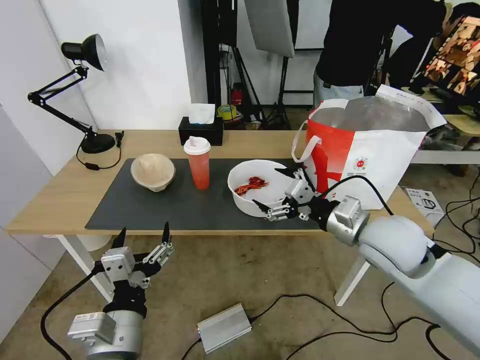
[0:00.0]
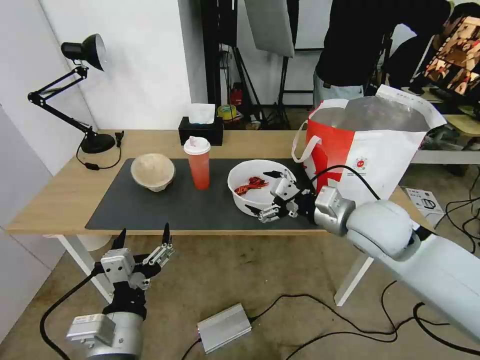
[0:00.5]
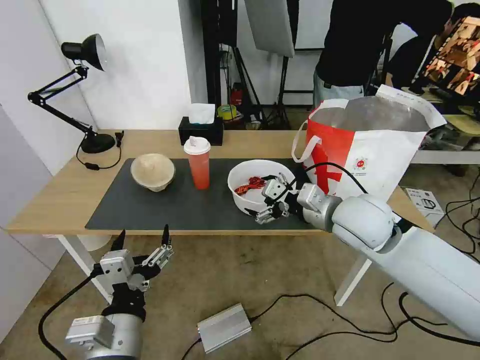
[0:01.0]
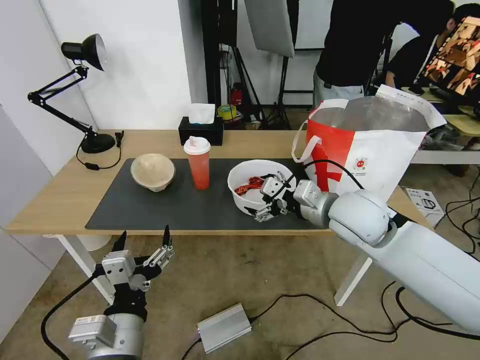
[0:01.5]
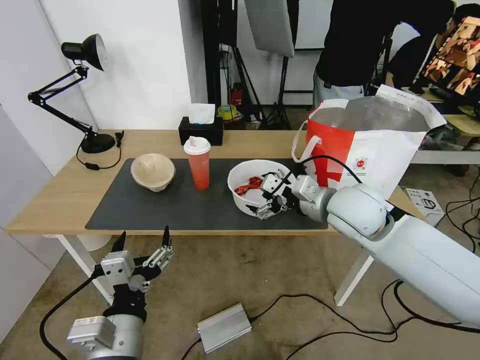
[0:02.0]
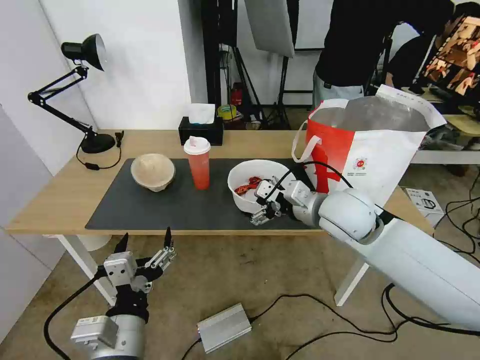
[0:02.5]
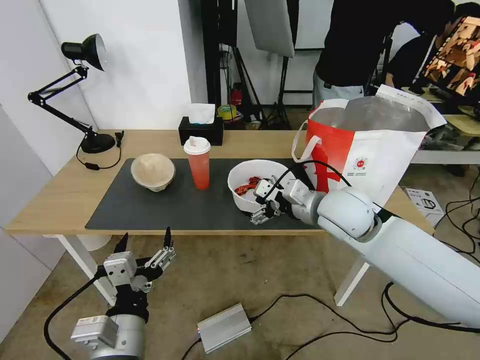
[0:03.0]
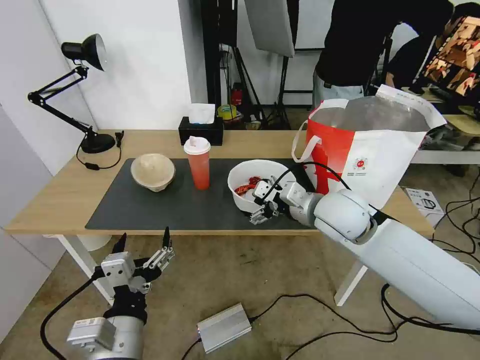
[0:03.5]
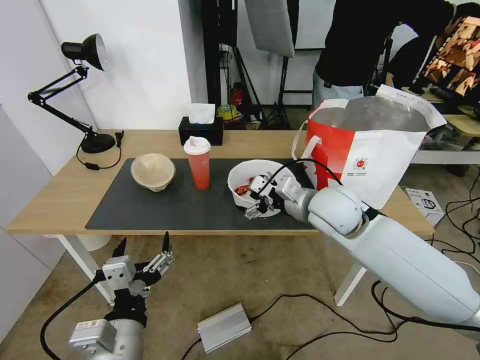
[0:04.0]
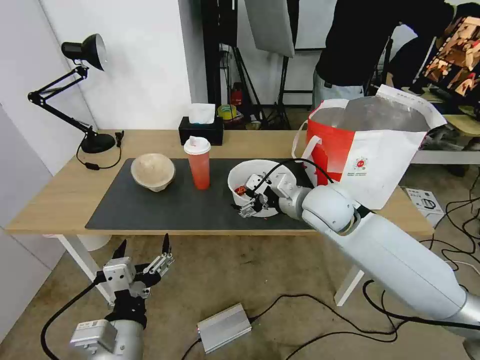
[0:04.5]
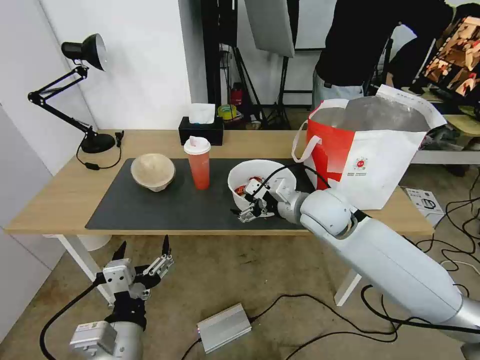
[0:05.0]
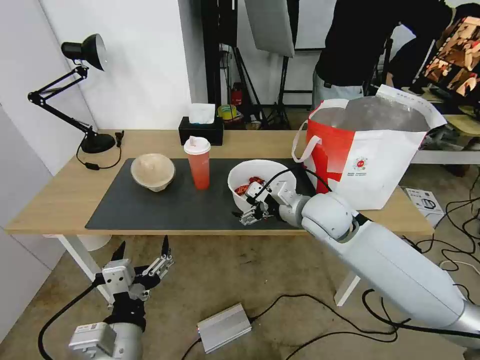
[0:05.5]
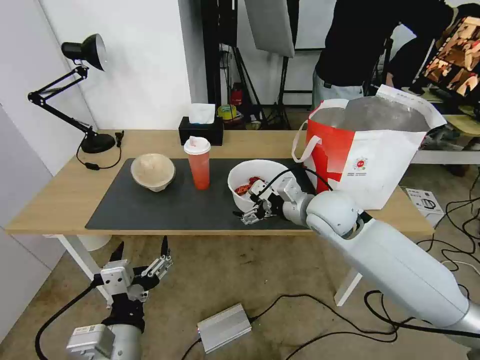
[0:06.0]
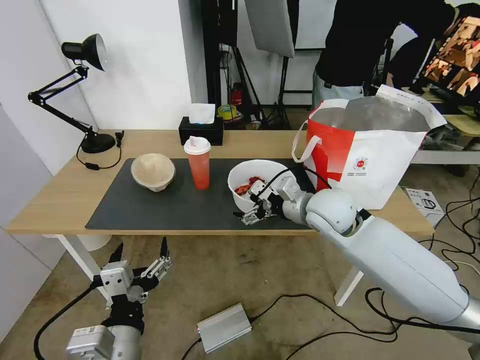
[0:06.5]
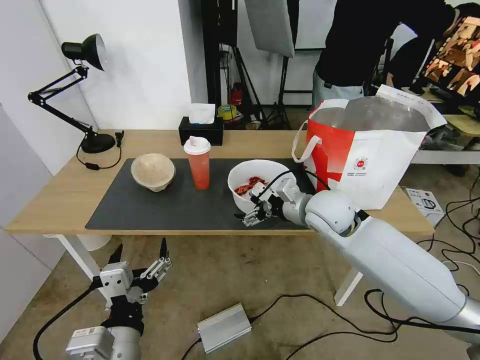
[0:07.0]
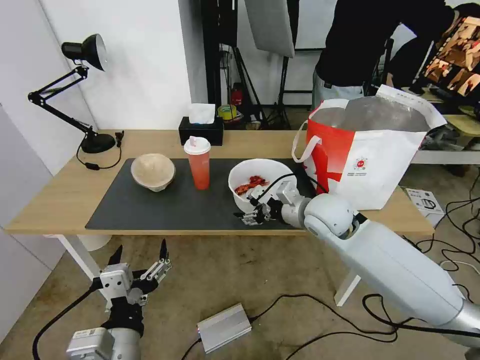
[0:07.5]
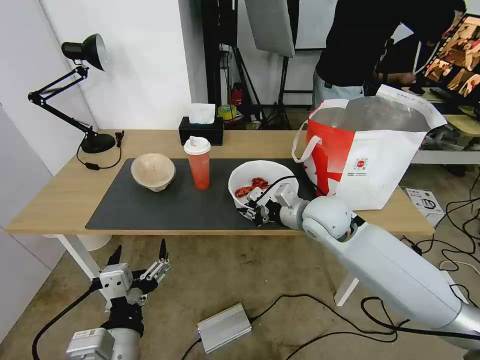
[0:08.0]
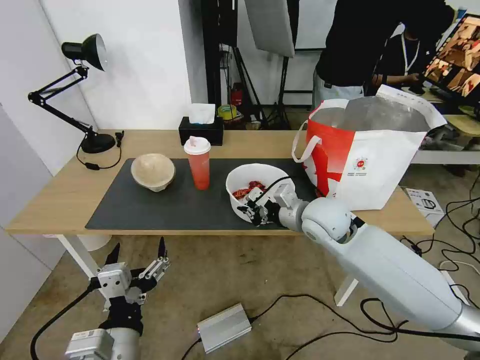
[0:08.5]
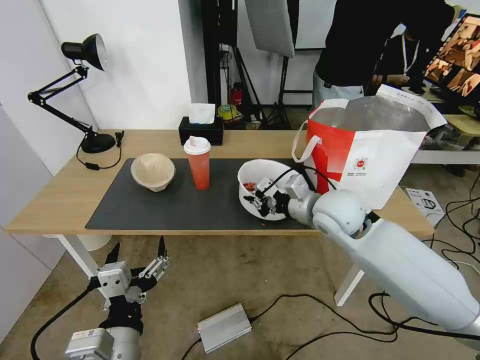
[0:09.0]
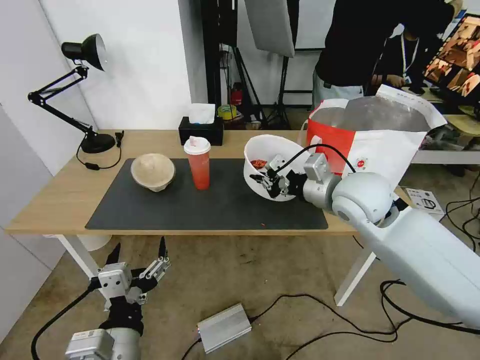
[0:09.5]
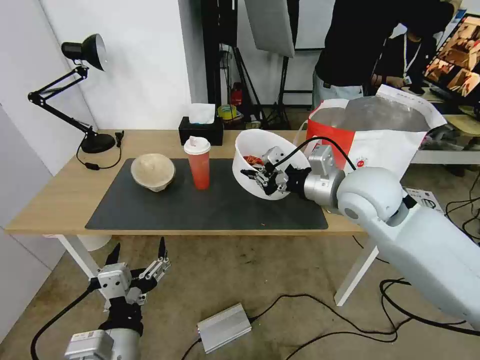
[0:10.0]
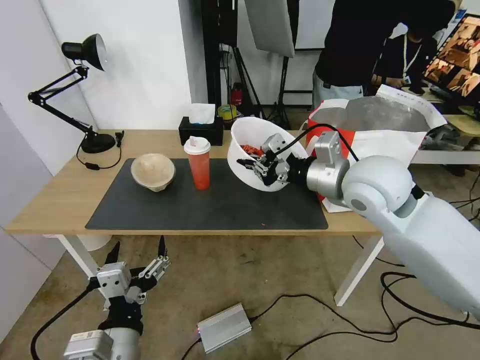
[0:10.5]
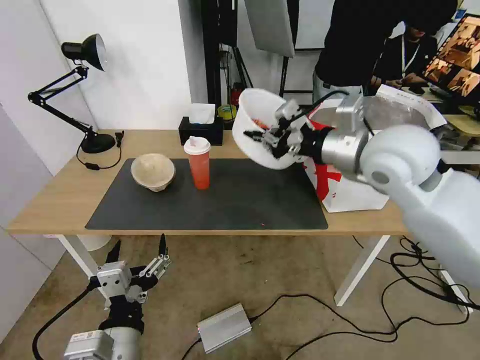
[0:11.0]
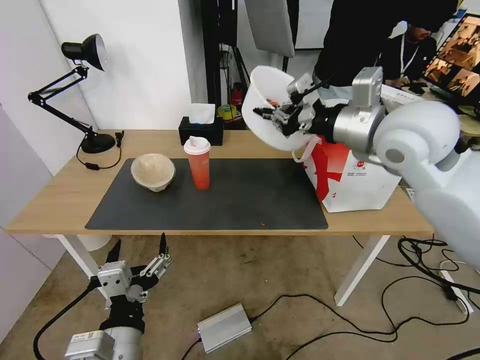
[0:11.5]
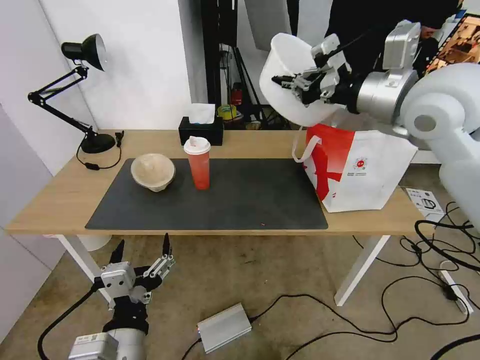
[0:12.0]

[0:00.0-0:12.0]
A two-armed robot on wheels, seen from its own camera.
Task of the whole recording: Pick up the trash from the table and place it into the takeout bag.
0:00.0 to 0:02.0: The right gripper shifts roughly 5 cm forward.
0:02.0 to 0:06.0: The grippers move only a little.
0:06.0 to 0:08.0: The right gripper closes.
0:08.0 to 0:10.0: The right gripper goes approximately 10 cm upward.
0:10.0 to 0:12.0: The right gripper shifts about 15 cm upward.

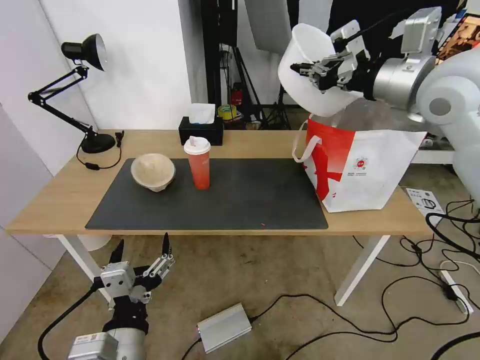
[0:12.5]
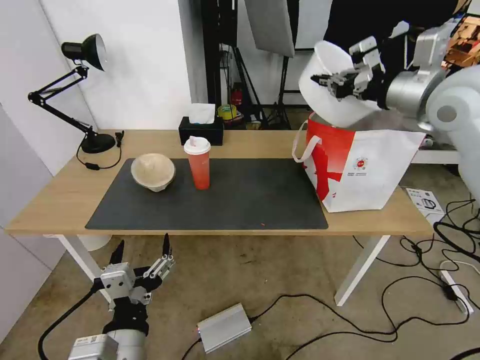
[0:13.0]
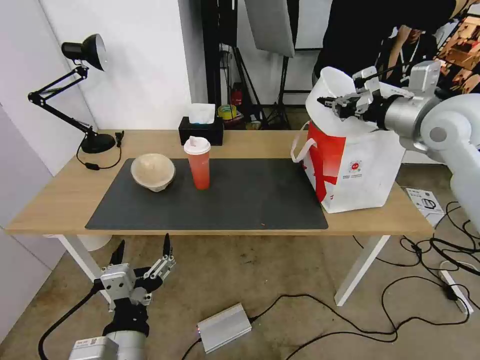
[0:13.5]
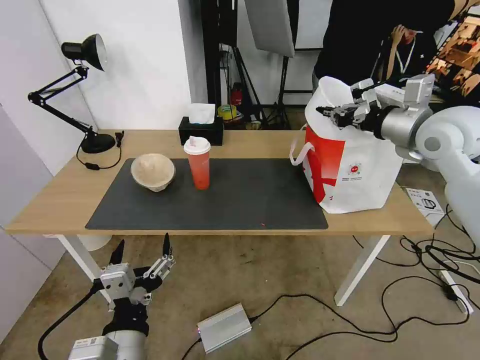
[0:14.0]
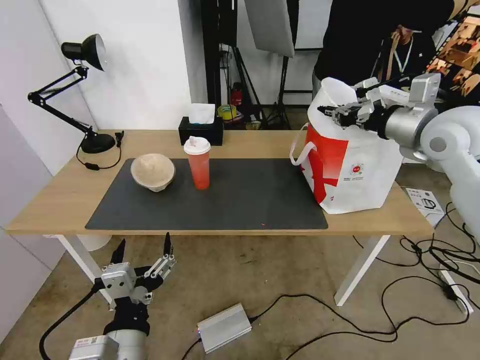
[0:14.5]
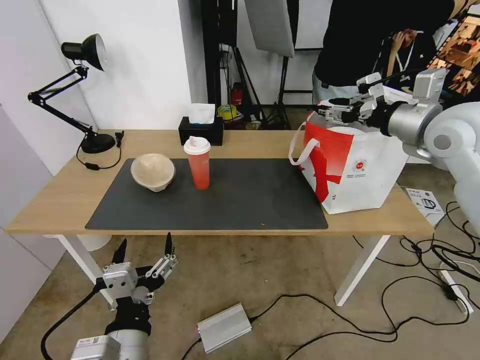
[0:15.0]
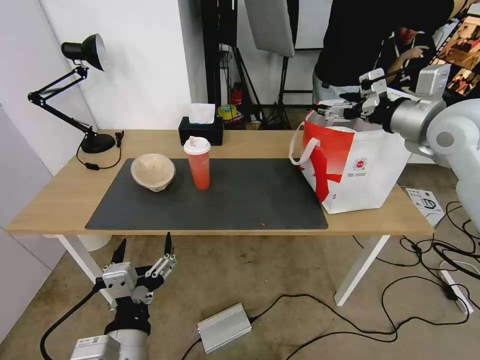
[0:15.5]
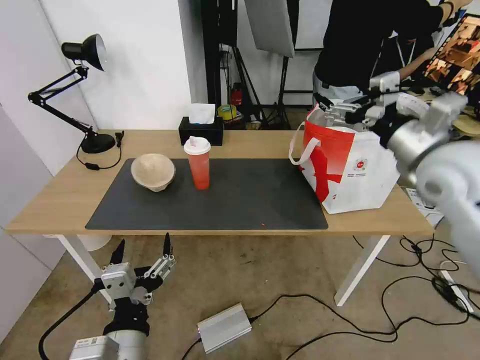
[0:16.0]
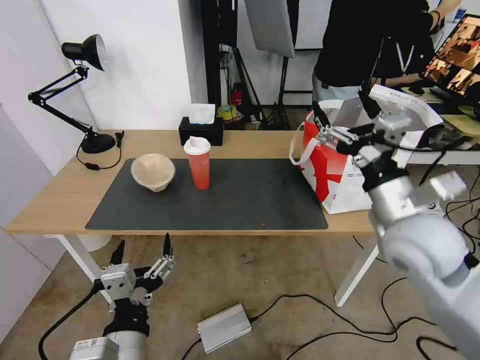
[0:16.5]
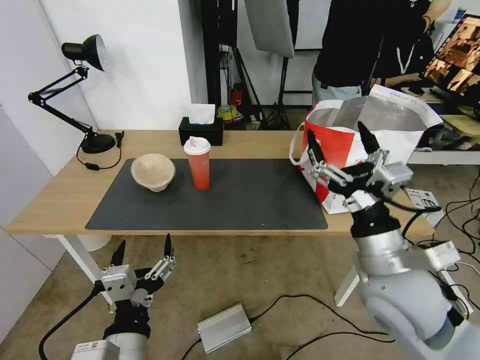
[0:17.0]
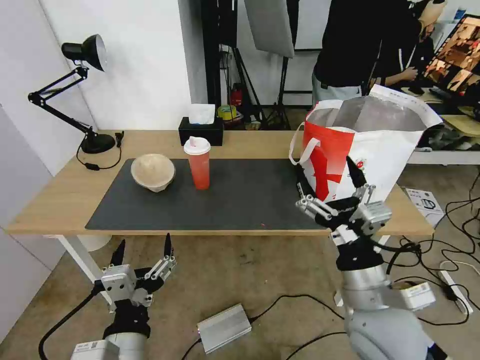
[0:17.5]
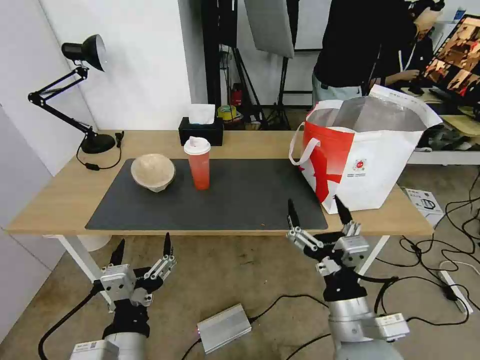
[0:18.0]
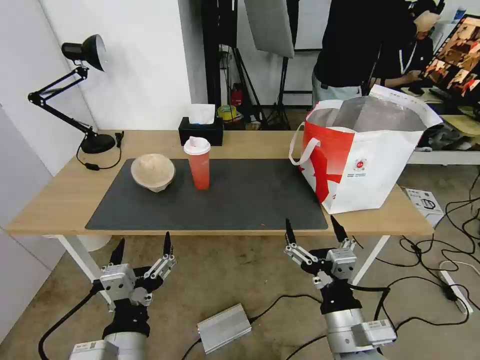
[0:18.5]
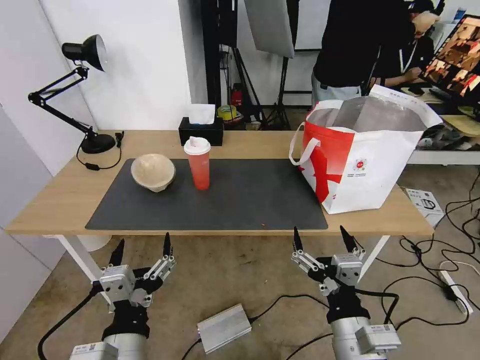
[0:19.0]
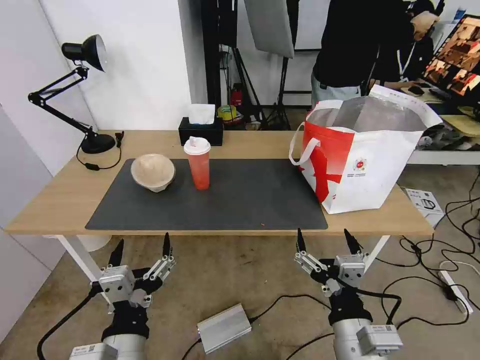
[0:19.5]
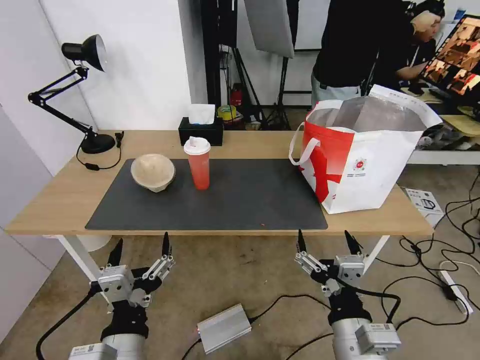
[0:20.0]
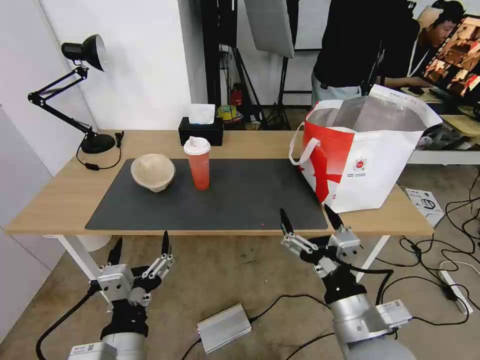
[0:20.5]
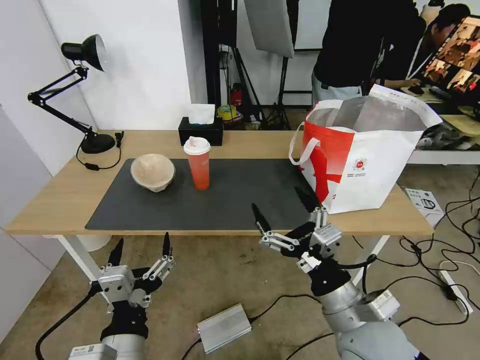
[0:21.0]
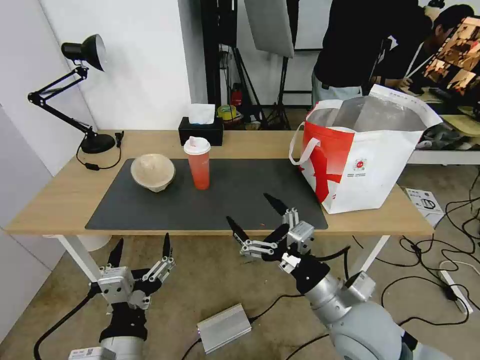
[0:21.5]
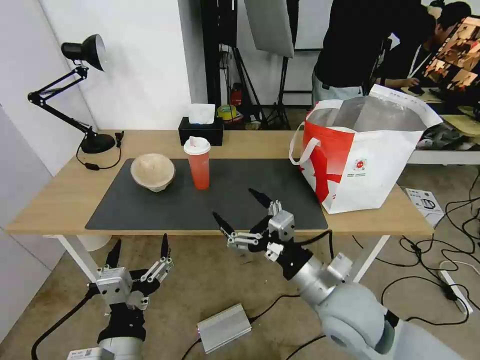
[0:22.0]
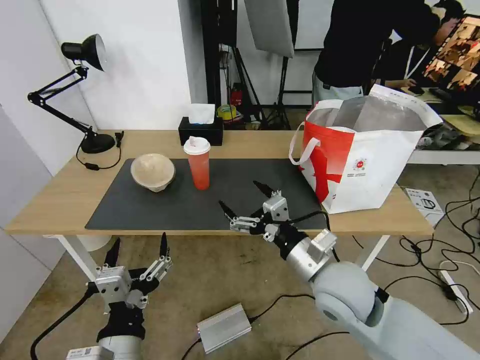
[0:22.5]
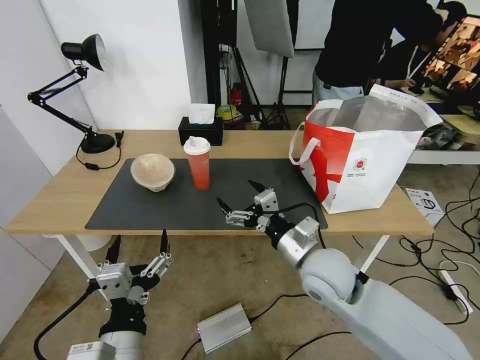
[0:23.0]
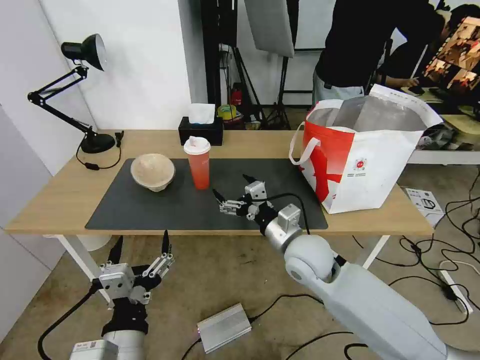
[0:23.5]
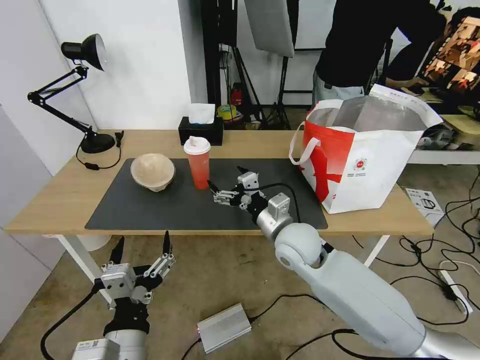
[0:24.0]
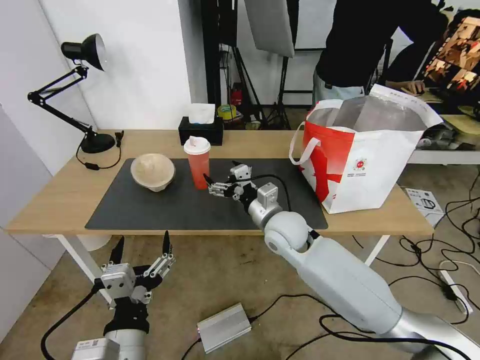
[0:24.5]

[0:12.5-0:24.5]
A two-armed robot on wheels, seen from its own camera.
Task of the whole recording: Pick up the trash from the table and place it into the takeout bag.
0:12.5 to 0:14.5: The right gripper heads downward and to the right, covering approximately 10 cm.
0:14.5 to 0:16.5: The right gripper shifts roughly 20 cm backward, downward and to the left, and opens.
0:16.5 to 0:18.5: The right gripper travels backward, downward and to the left by approximately 25 cm.
0:18.5 to 0:20.5: The grippers make only small movements.
0:20.5 to 0:22.5: The right gripper goes some 10 cm forward.
0:22.5 to 0:24.5: The right gripper shifts approximately 15 cm forward and to the left.

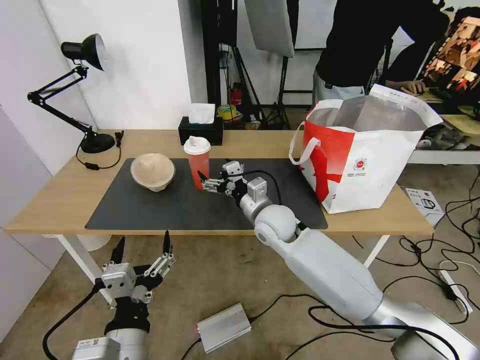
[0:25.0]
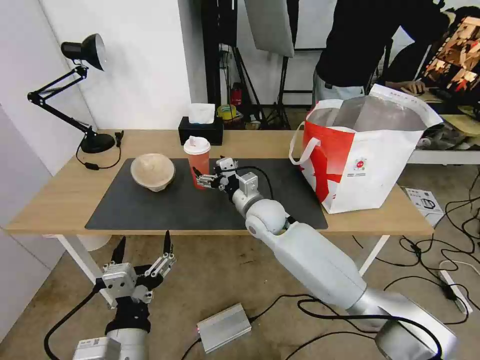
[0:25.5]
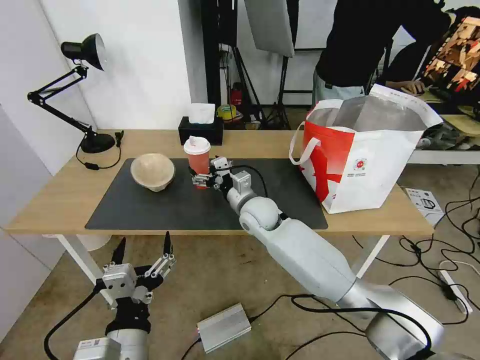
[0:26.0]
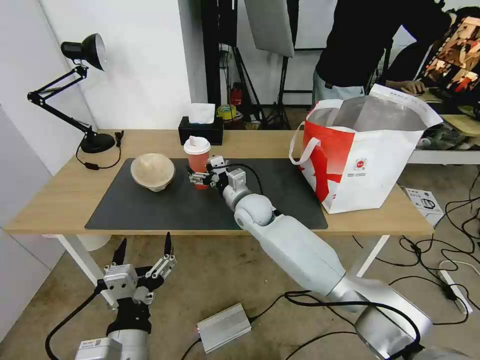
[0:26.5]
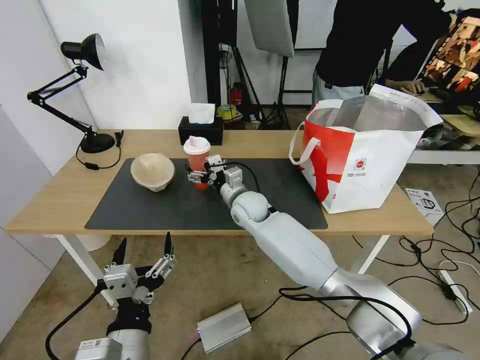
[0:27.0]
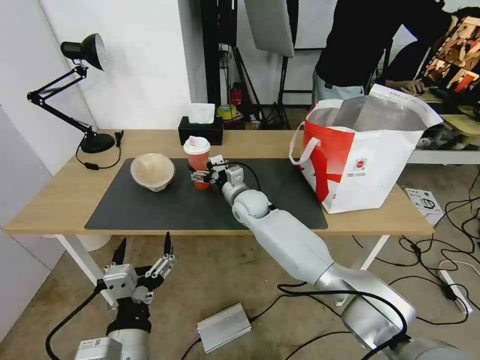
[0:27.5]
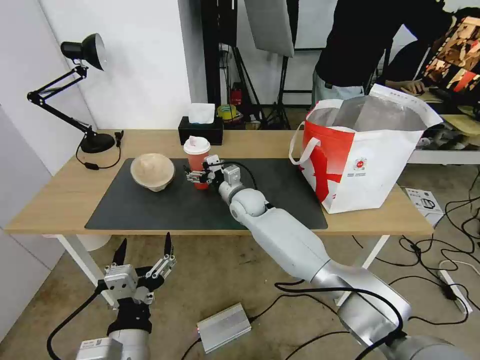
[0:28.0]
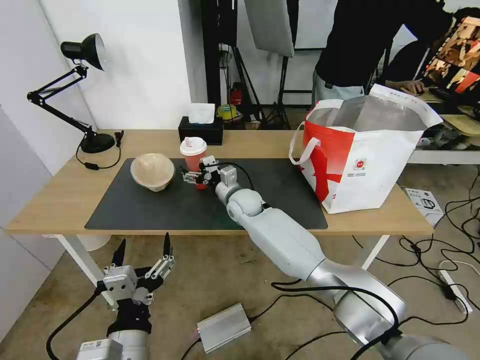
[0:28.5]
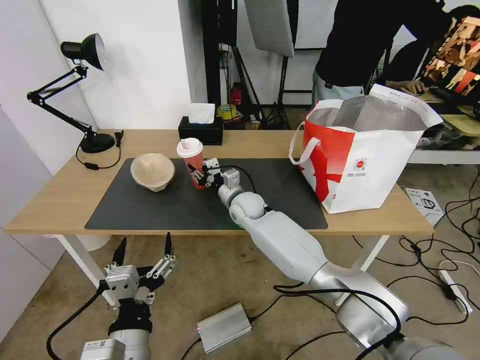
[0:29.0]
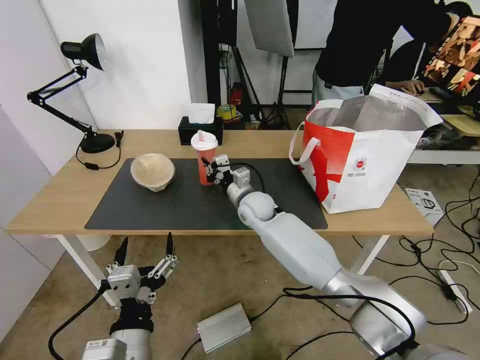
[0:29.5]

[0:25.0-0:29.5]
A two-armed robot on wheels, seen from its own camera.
Task of the whole recording: Pick up the trash from the table and place it into the takeout bag.
0:25.0 to 0:27.0: The right gripper moves forward and to the left, some 10 cm.
0:27.0 to 0:29.5: The right gripper closes.
